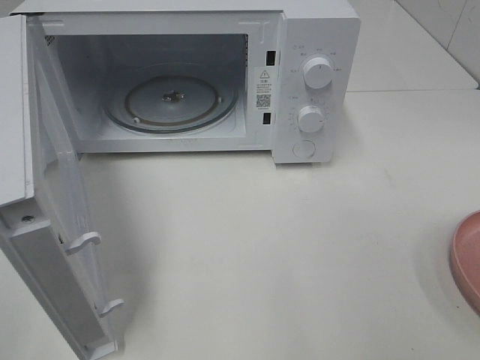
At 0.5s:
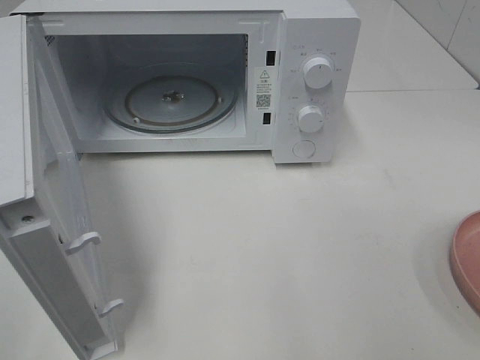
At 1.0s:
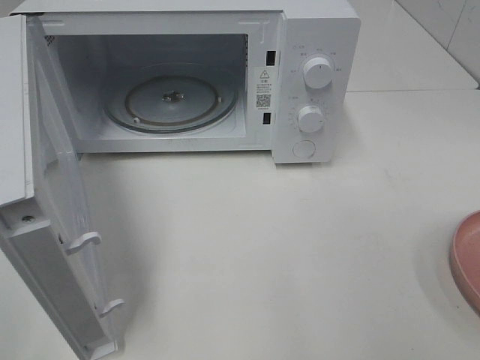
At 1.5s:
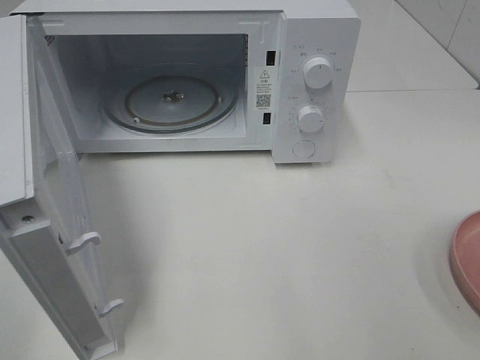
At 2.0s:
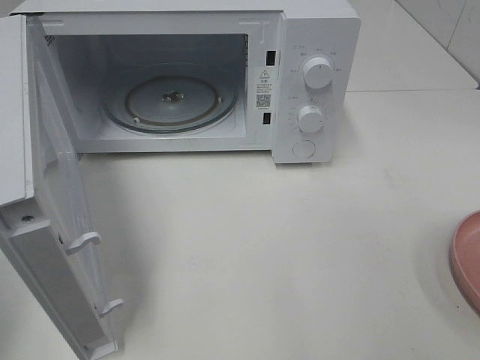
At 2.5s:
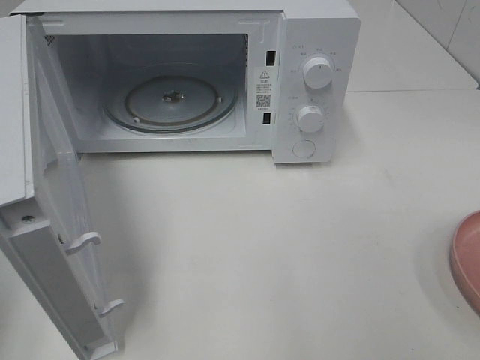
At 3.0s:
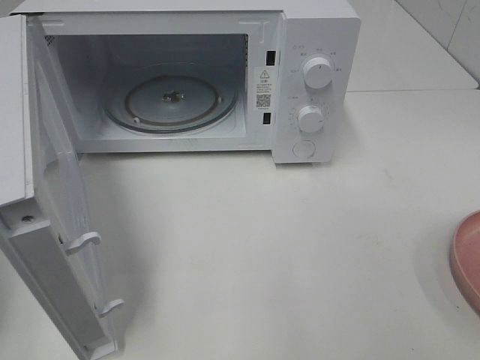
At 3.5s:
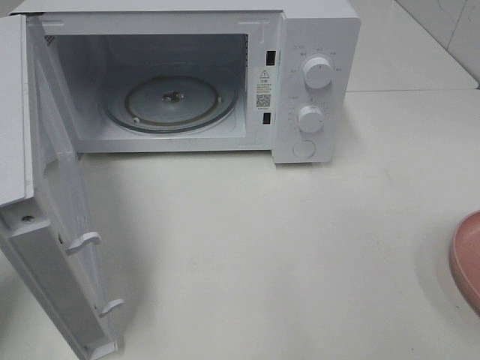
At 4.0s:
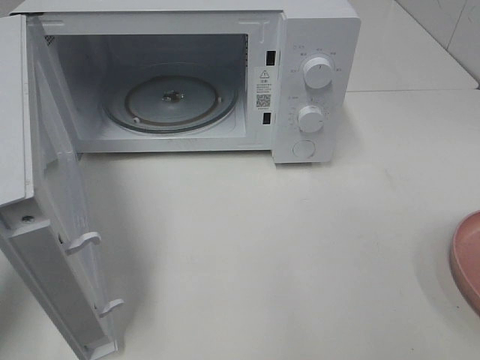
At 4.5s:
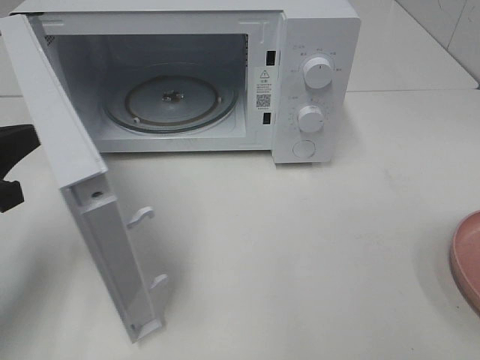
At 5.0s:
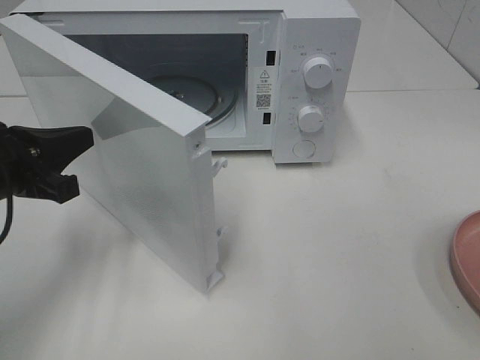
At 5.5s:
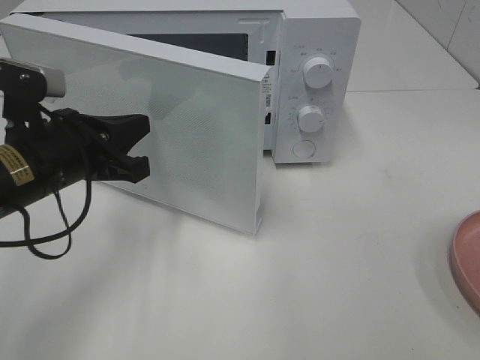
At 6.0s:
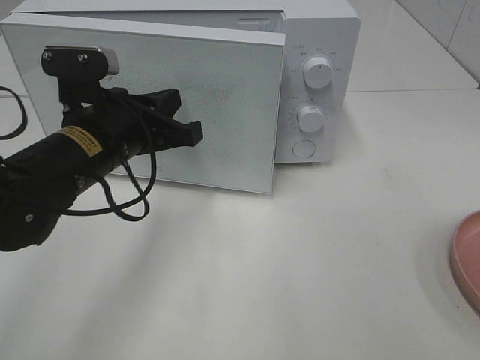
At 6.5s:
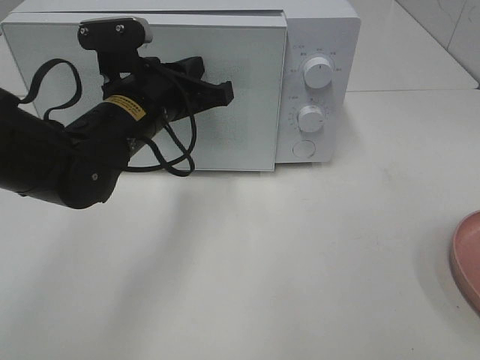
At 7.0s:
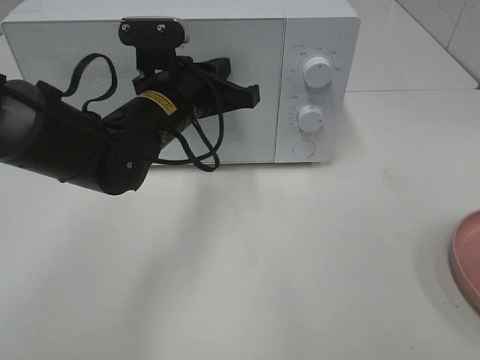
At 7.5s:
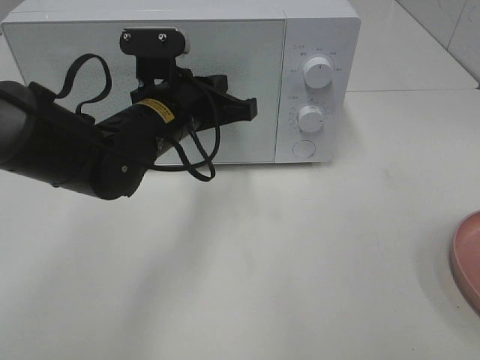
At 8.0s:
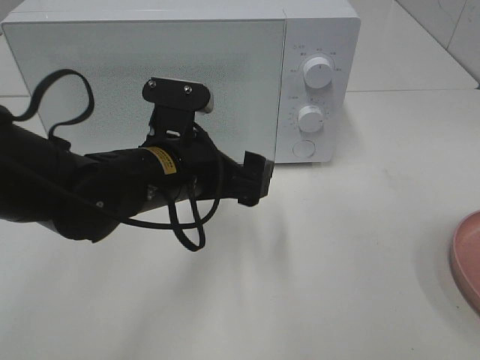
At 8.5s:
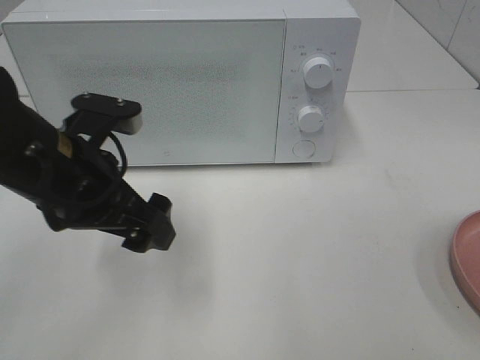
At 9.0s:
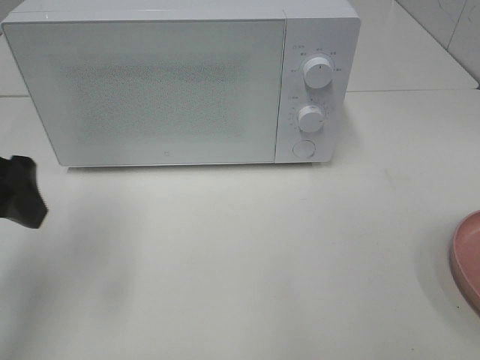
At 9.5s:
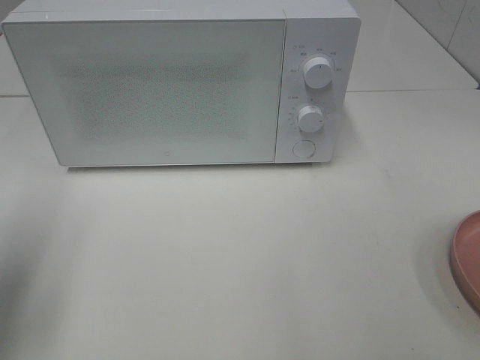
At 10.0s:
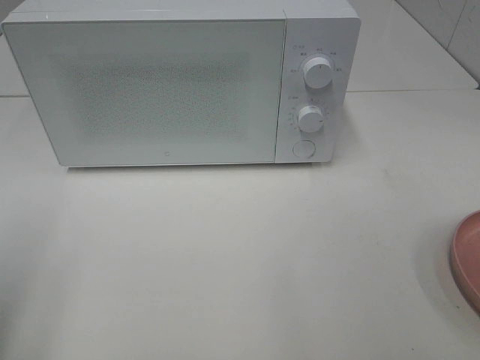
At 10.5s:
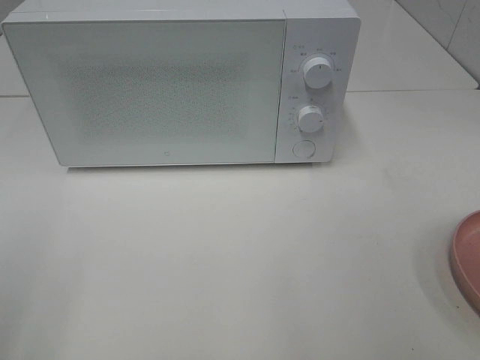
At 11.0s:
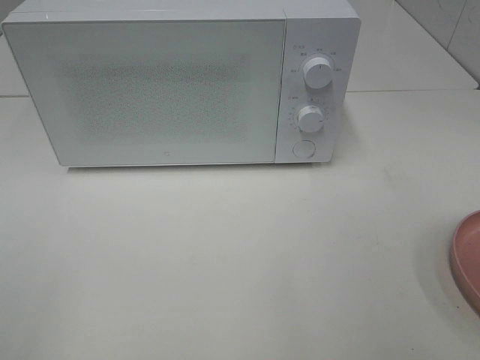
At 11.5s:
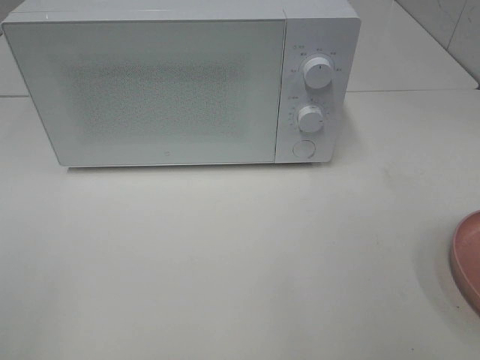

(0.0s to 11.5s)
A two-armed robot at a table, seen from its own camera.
Task of the whole recording: Heat the burger.
Step, 0.0s - 7.5s: Left hand: close the microwave door.
2.0s - 4.0s: The left gripper shifts approximately 20 cm downward and forward.
4.0s - 6.0s: The left gripper is displaced to the right and forward by some 20 cm.
6.0s - 7.5s: The left gripper travels to the right by some 5 cm.
7.5s - 9.5s: The left gripper shifts some 30 cm to the left and backward, and opens up.
9.5s - 11.5s: The left gripper shifts some 15 cm backward.

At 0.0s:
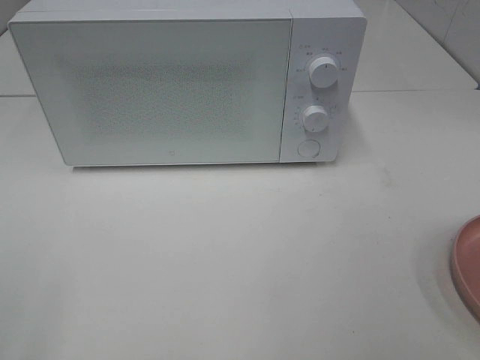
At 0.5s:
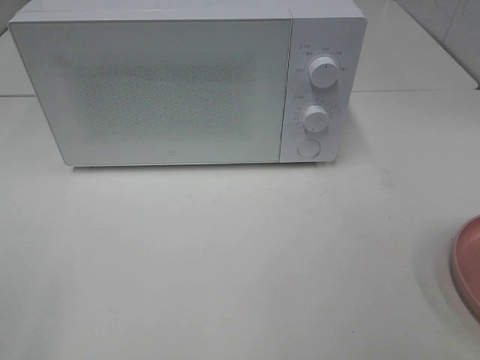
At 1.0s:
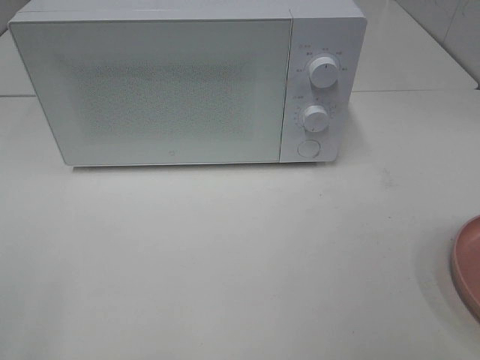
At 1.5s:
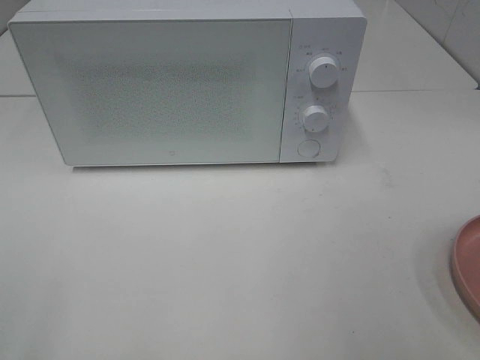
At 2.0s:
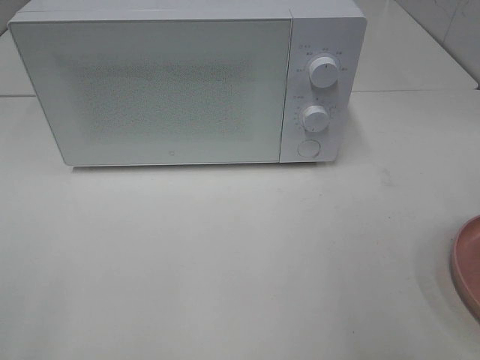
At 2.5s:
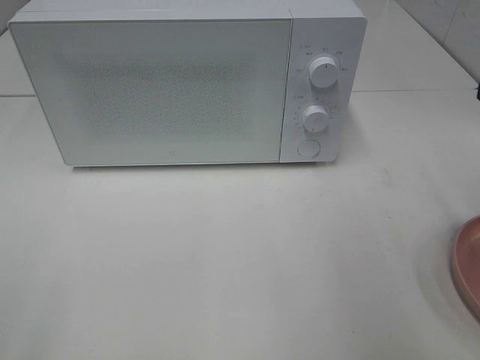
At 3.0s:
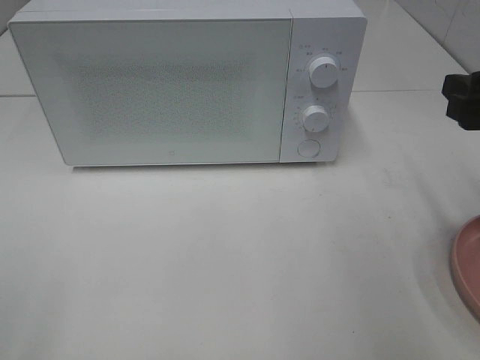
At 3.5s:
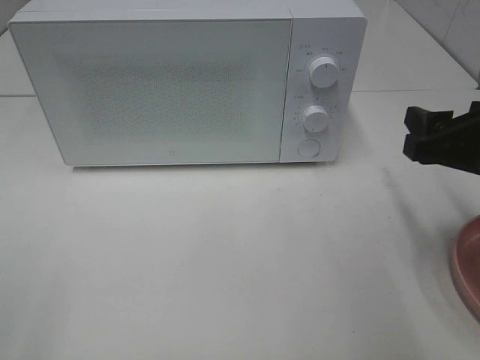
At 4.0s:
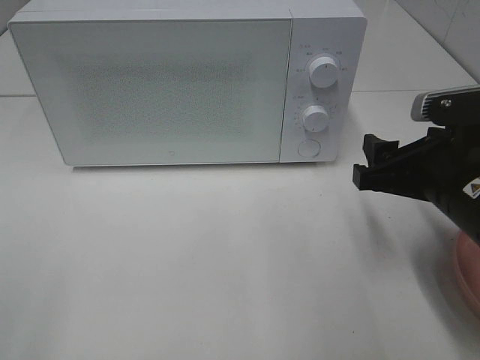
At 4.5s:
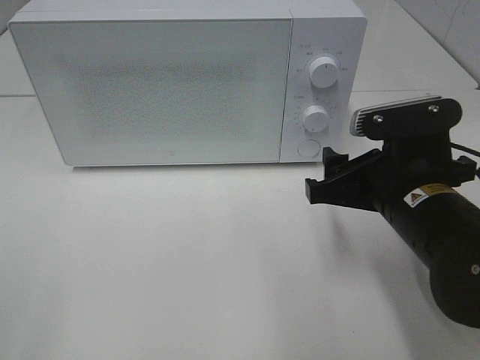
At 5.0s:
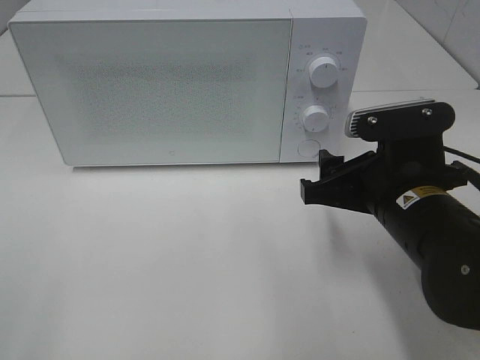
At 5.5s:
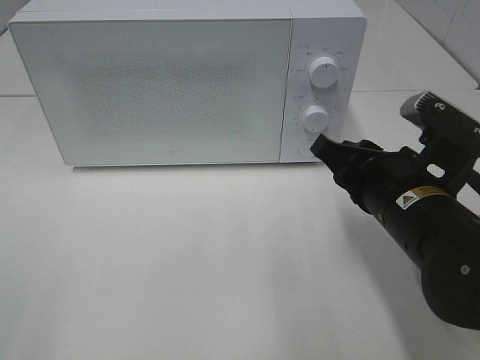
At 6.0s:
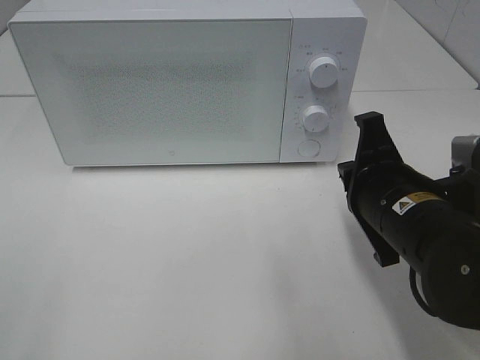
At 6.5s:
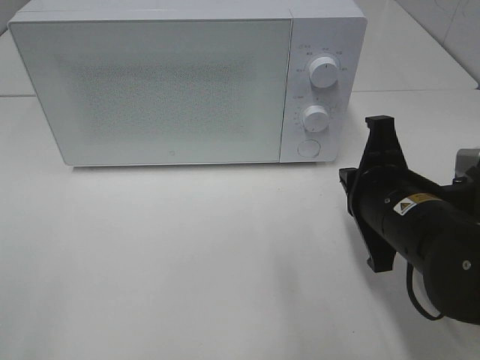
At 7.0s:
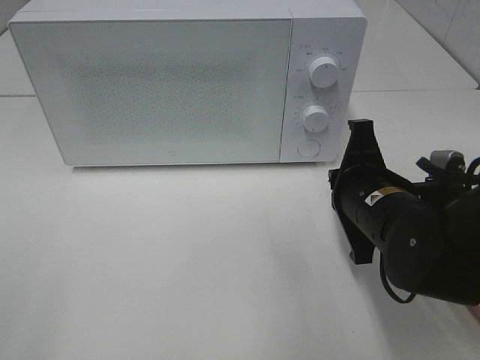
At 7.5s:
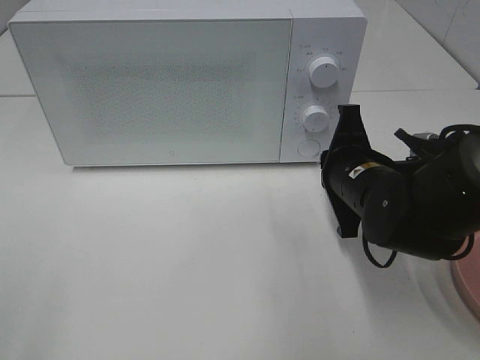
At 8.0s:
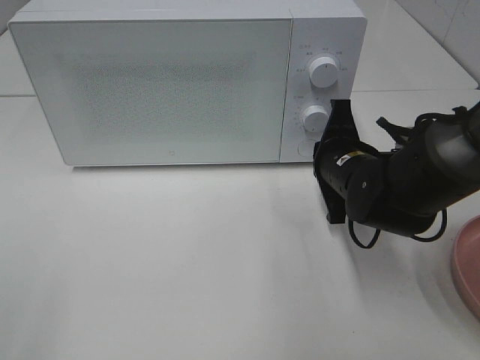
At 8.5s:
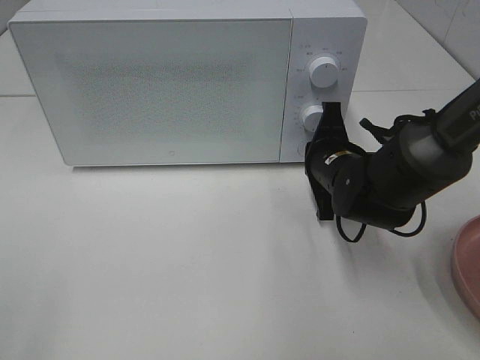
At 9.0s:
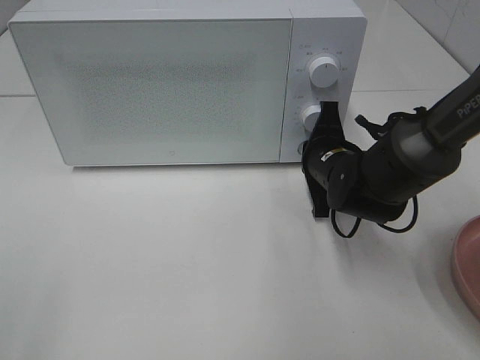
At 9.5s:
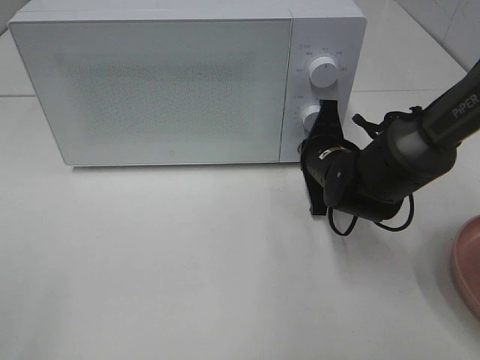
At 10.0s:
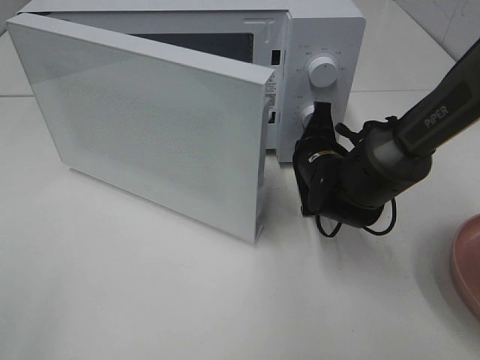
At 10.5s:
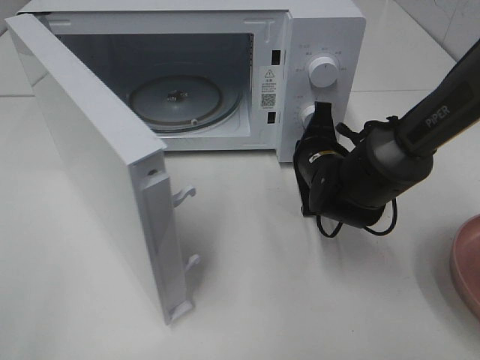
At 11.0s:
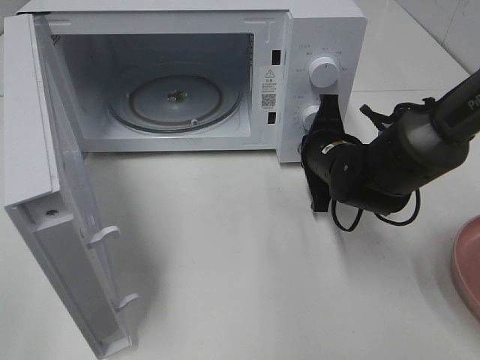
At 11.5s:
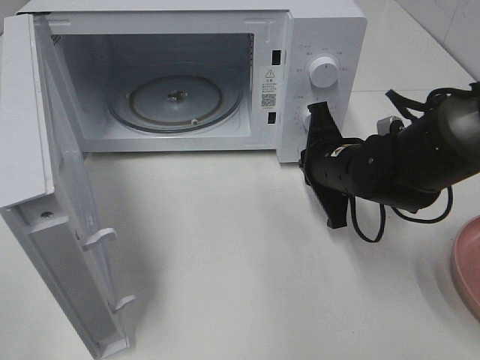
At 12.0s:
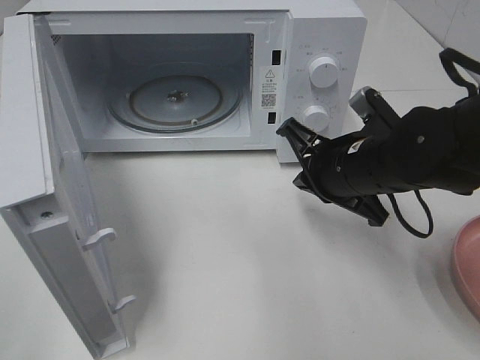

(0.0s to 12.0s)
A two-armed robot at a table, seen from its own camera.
Task of the whole recording: Heat the burger.
Step, 0.0s - 11.0s: Right hand: press the switch.
2.0s - 4.0s: The right gripper goes approximately 15 cm downward, forward and to the left.
4.0s - 6.0s: The right gripper ends up approximately 5 cm from where it was, and closes.
6.0s - 8.0s: The right gripper is displaced forward by roughly 10 cm.
8.0s - 10.0s: The right gripper moves roughly 5 cm.
10.0s - 12.0s: The right gripper heads backward and upward, covering approximately 10 cm.

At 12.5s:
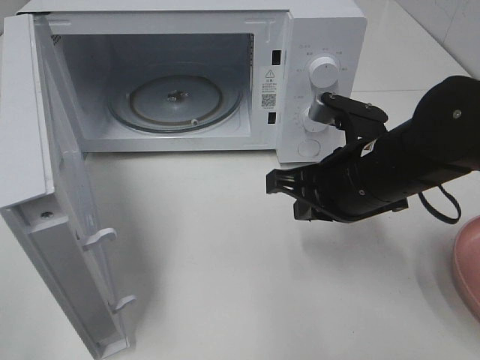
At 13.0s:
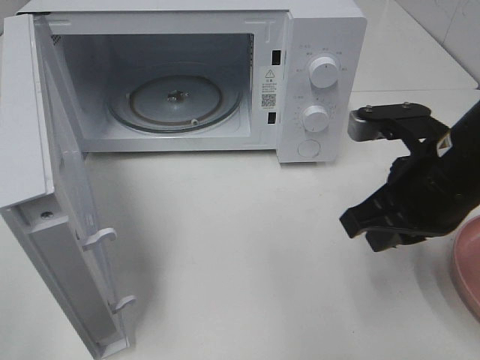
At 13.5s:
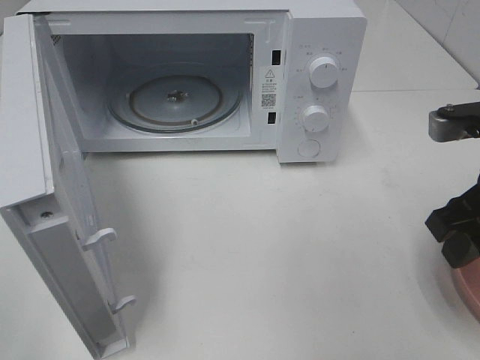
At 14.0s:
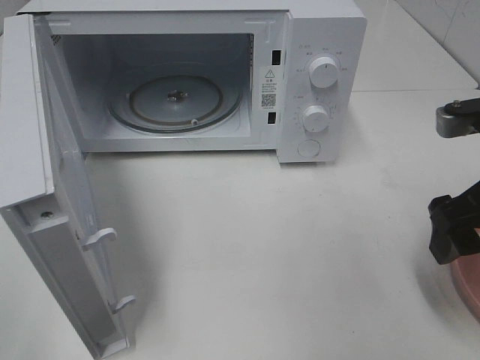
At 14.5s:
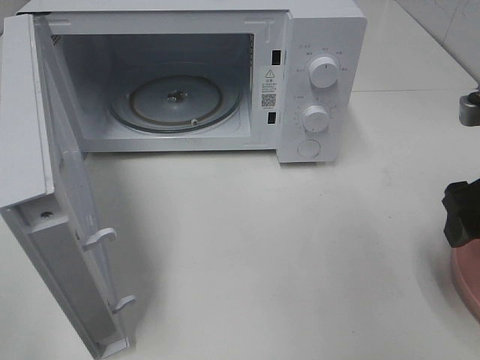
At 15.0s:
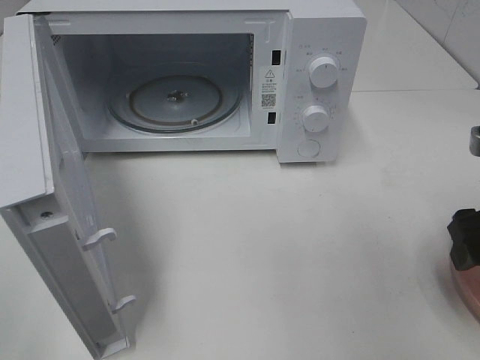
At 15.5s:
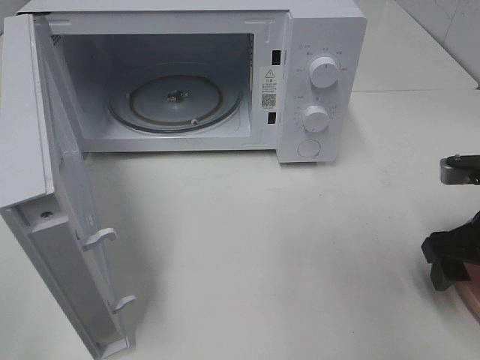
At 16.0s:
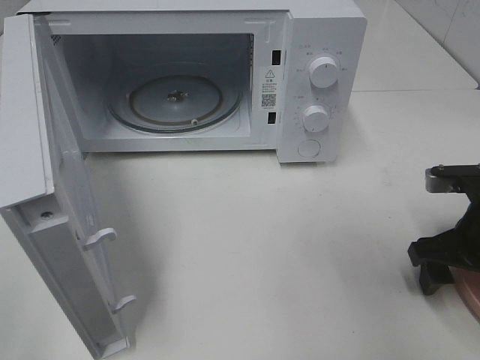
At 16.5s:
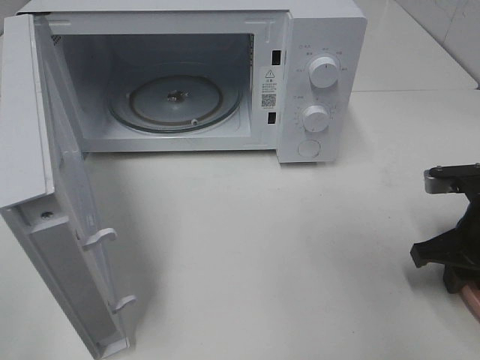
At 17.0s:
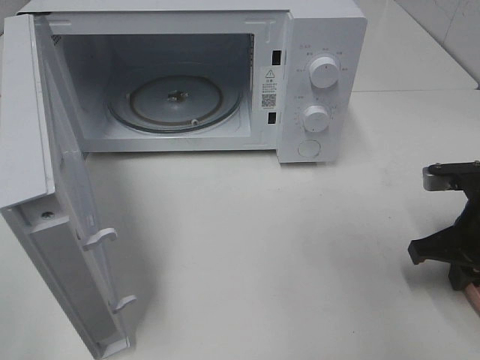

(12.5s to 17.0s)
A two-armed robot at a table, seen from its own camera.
Task of the whole recording: Heat the burger.
Step, 12.5s - 16.5s: Right hand: grab the plate with the hamburger.
12.5s - 14.5s: The right gripper is displaced to the right and upward by approximately 15 cm, and opens.
14.5s - 17.0s: The right gripper travels downward by roughly 10 cm, and closes.
